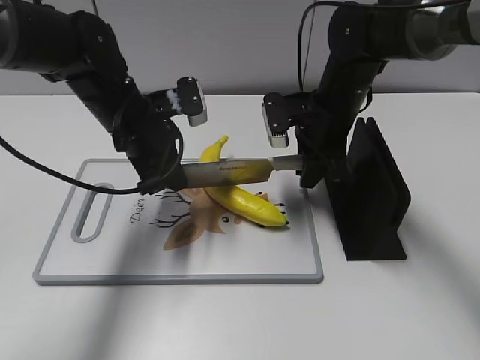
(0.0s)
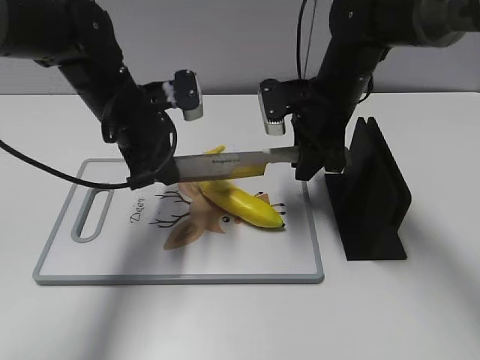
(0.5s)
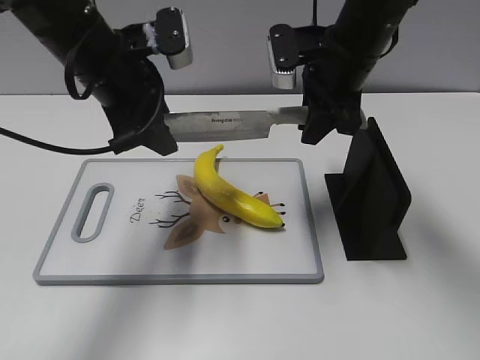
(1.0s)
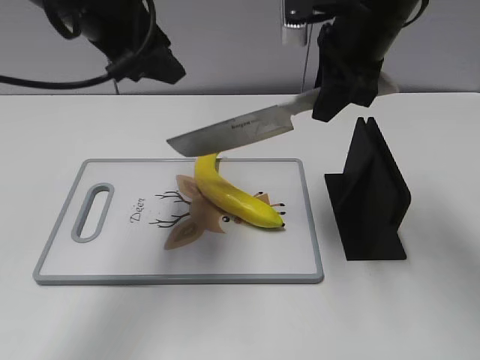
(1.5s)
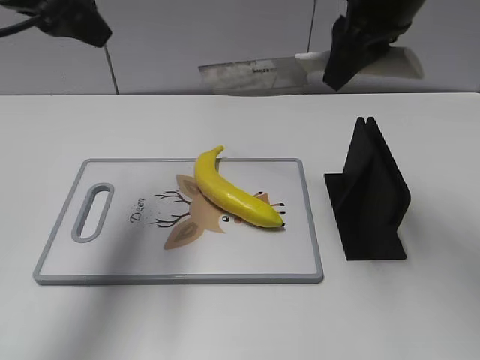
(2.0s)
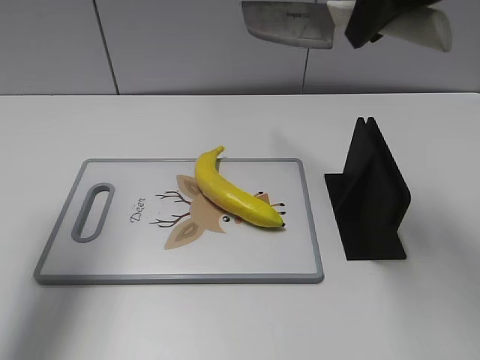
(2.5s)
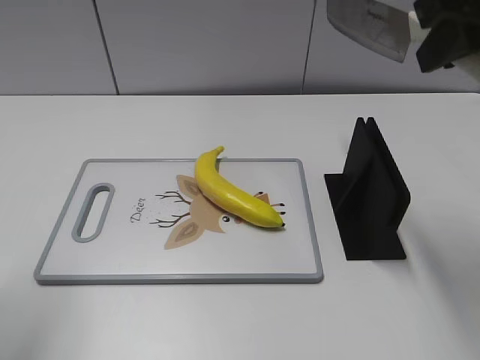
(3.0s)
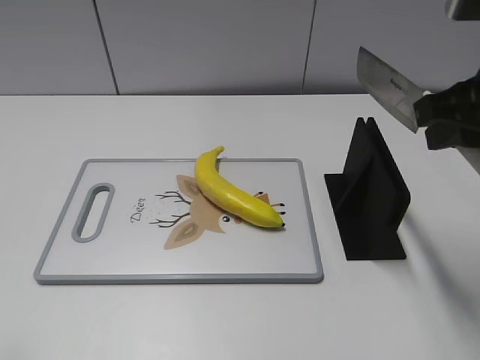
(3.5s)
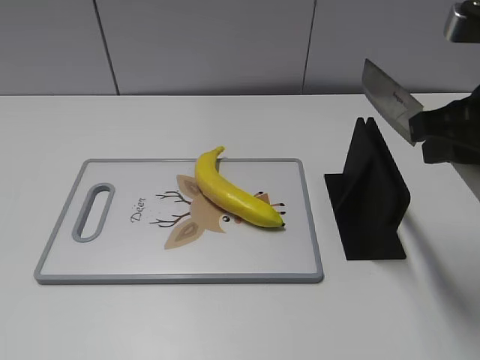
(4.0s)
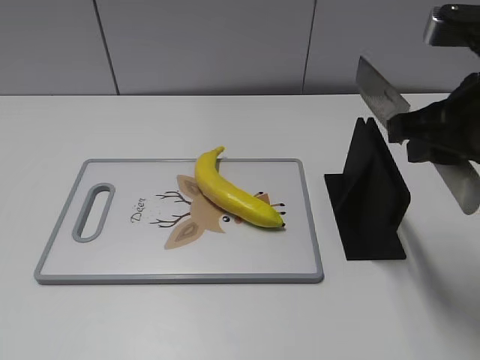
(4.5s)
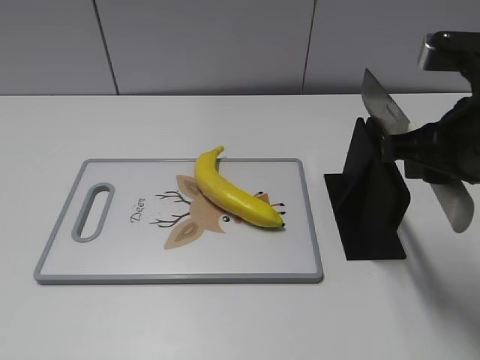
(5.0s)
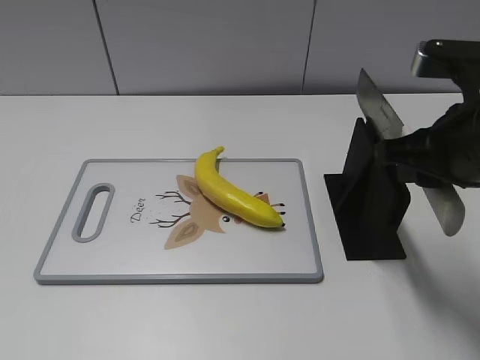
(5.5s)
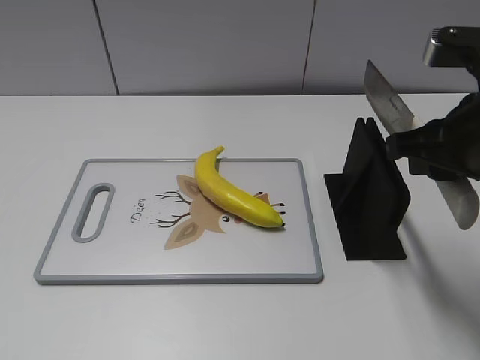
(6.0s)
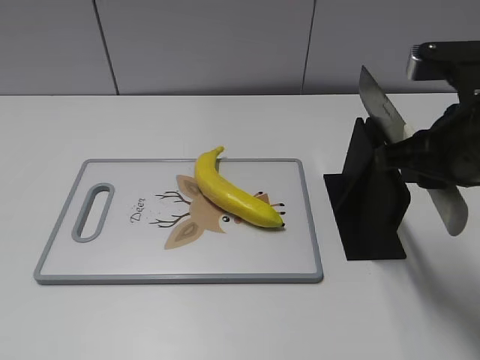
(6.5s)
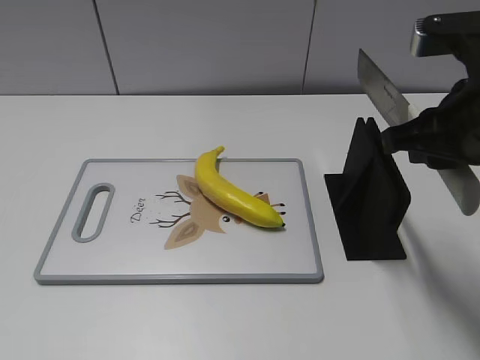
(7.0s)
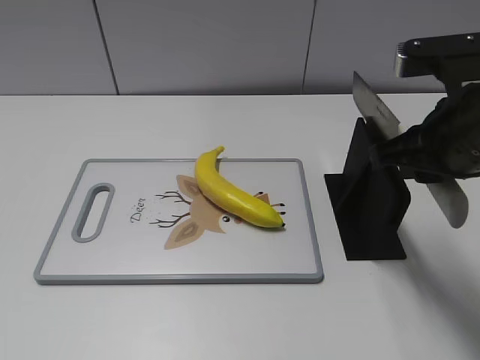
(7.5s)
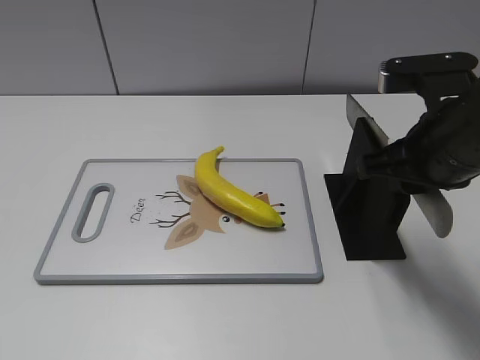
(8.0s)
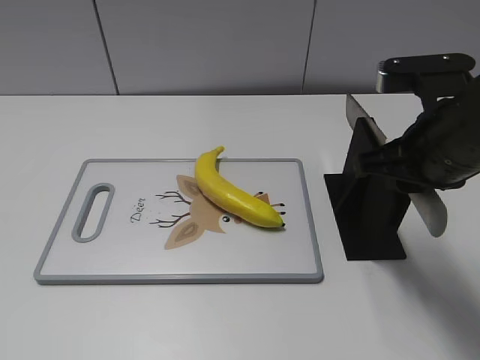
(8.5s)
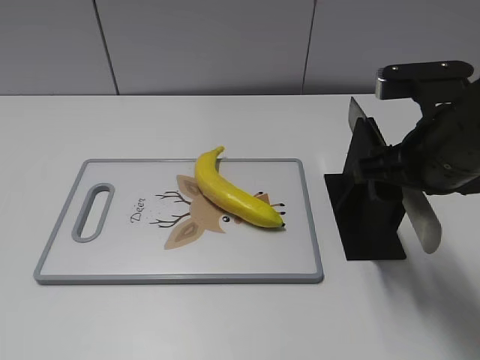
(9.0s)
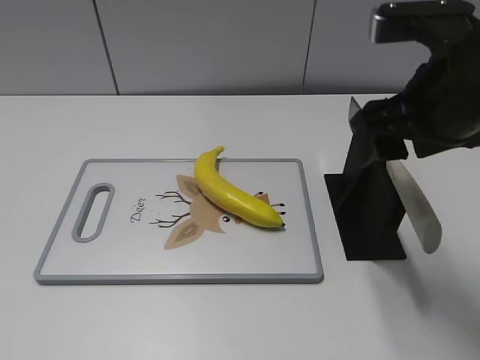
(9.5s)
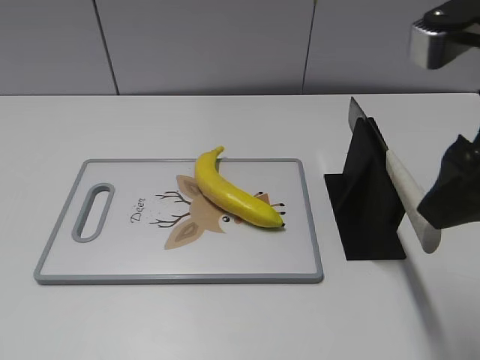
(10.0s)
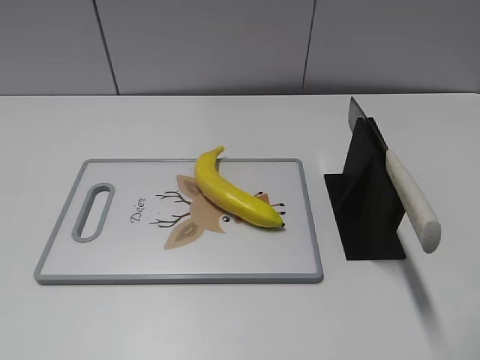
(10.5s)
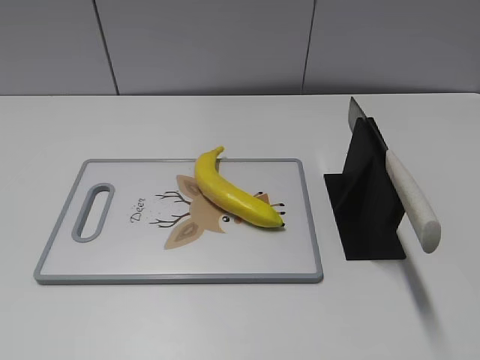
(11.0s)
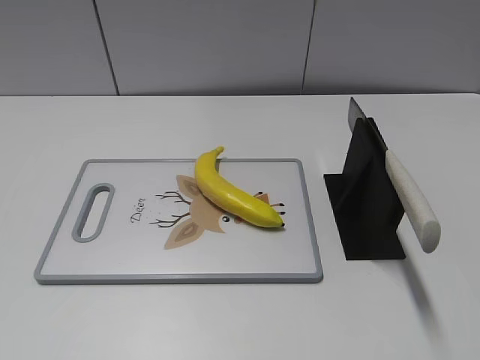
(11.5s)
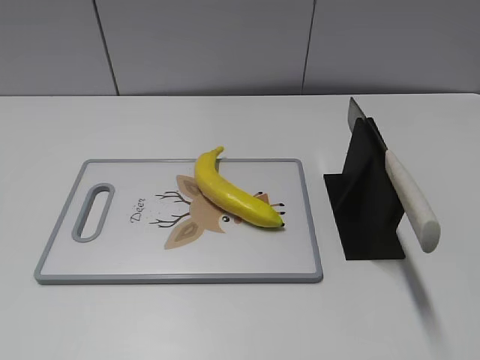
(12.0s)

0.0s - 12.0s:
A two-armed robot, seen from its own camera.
Task of the whole recording: cut plastic banana.
Step, 0.0s - 1.5s: Cut the banana with your right hand.
Step, 2.0s - 4.0s: Lift the knife with your right hand.
0.0s - 2.0s: The two grippers go roughly 20 cm upward. The left gripper opens up.
2.0s - 4.0s: The left gripper moves backward, some 30 cm. Meanwhile the right gripper heads backward and to the right, covering roughly 15 cm.
4.0s - 6.0s: The grippers stay close to where they were, moving slightly.
6.0s - 8.0s: The grippers stay close to where they were, moving slightly.
8.0s - 10.0s: The right gripper heads upward and backward, covering approximately 10 cm, and opens up.
10.0s - 12.0s: The right gripper heads backward and to the right, covering some 20 cm.

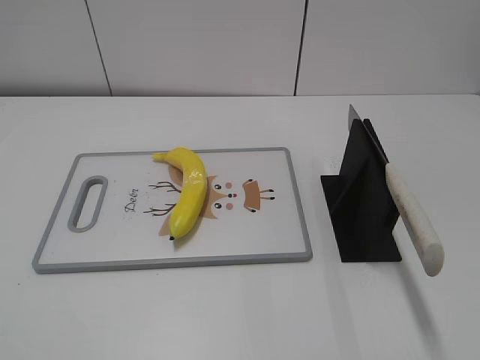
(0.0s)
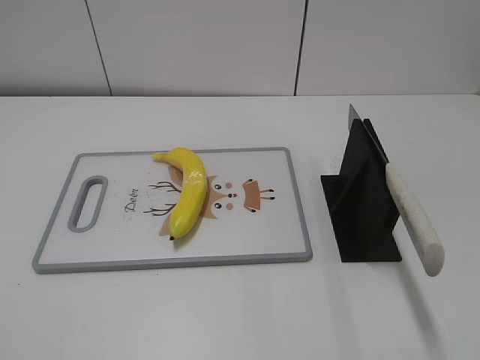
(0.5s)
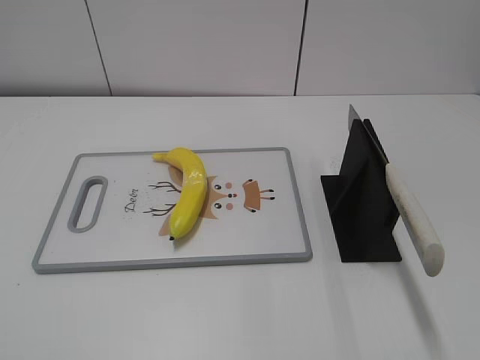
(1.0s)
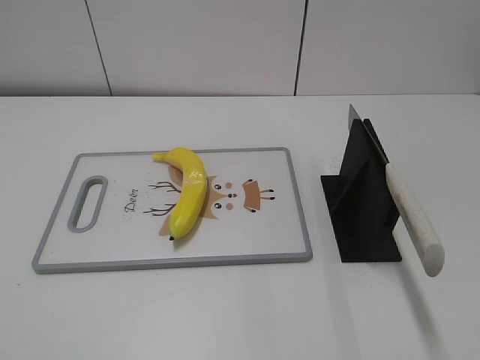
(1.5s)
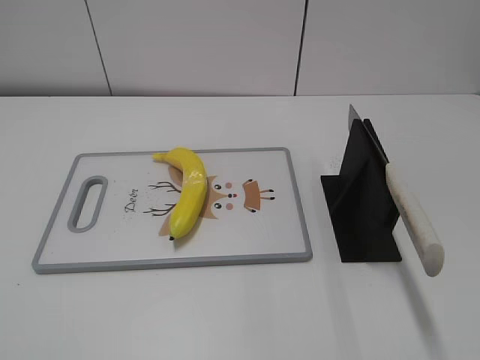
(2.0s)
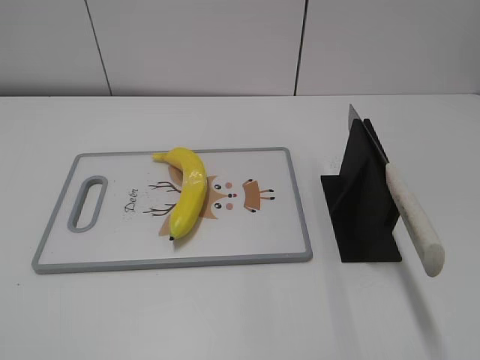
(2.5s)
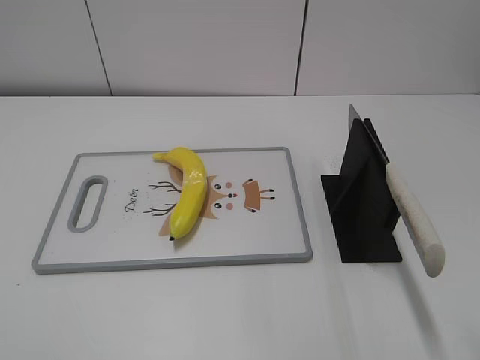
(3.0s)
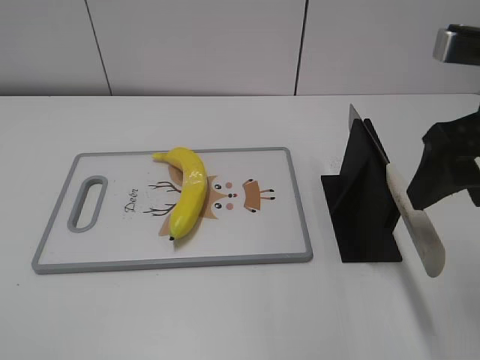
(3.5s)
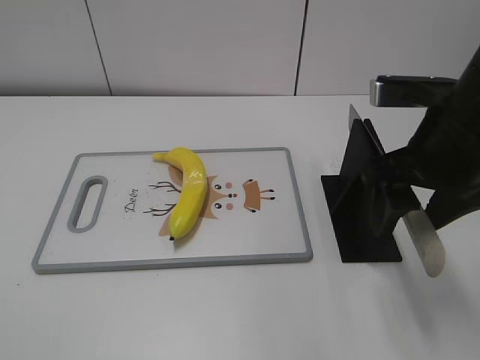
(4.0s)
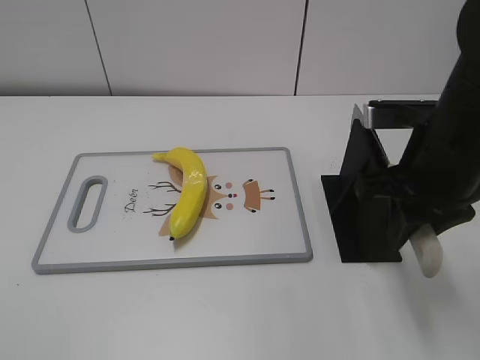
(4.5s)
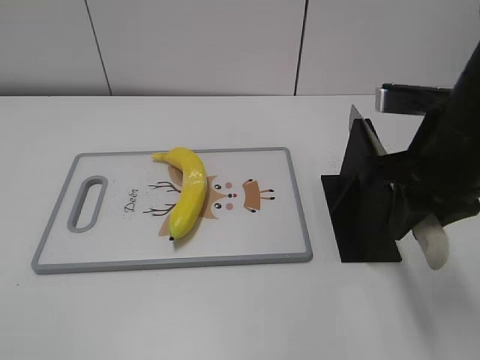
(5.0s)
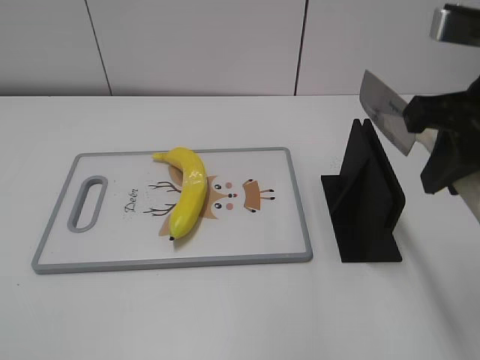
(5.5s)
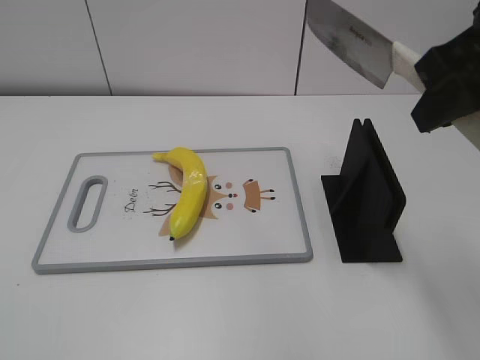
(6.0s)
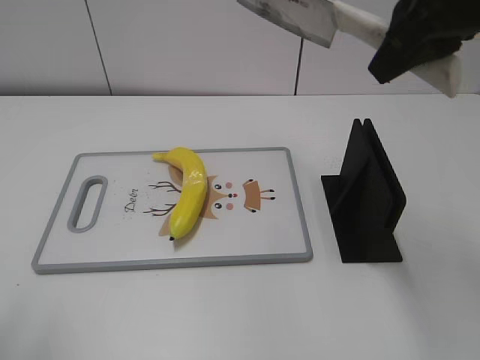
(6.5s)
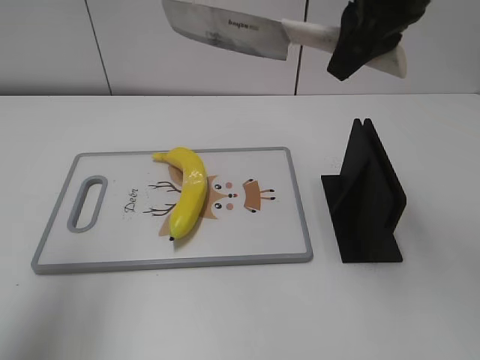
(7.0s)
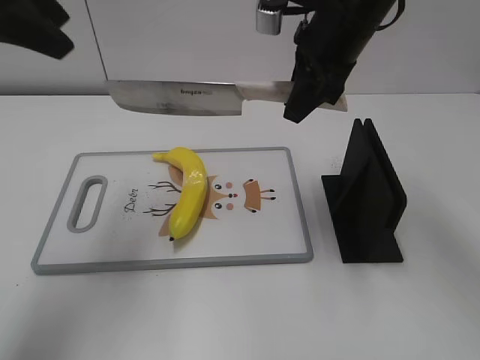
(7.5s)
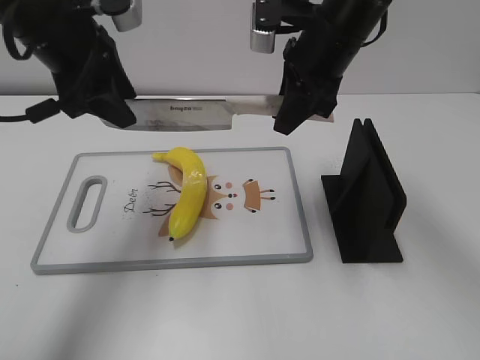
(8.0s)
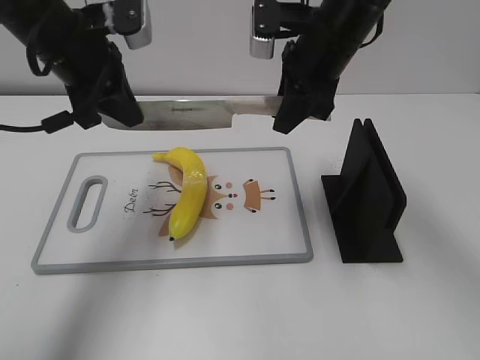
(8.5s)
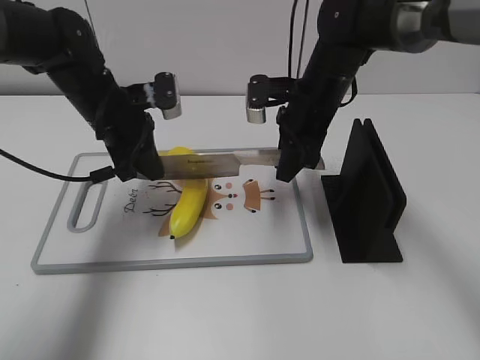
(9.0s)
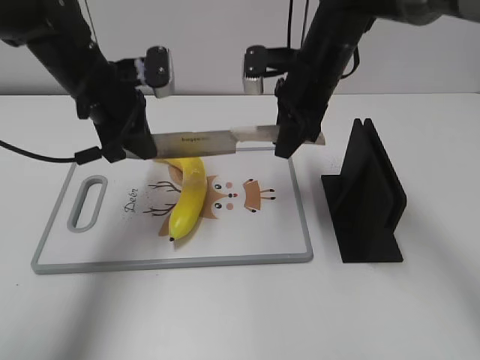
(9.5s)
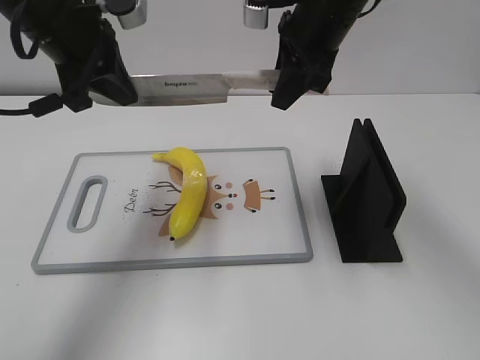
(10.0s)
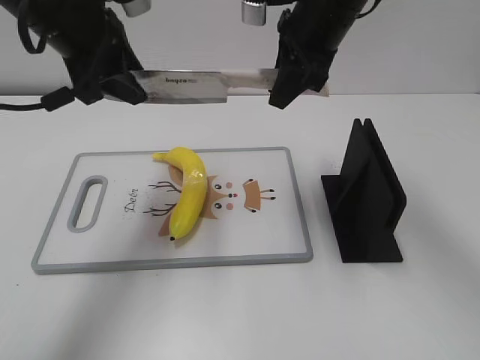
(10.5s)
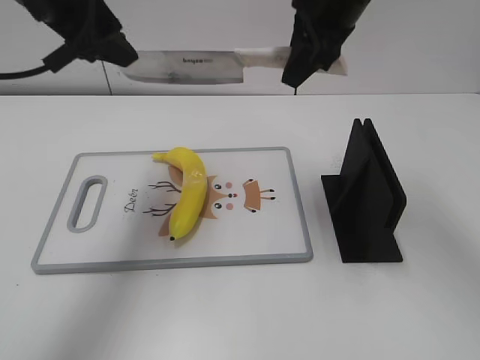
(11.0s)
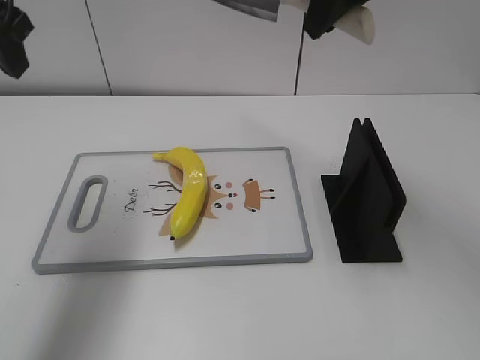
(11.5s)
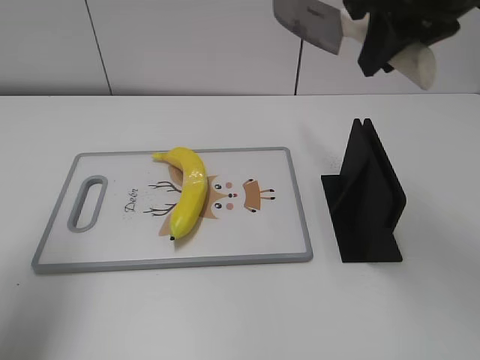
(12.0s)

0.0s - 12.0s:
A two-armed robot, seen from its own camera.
Task of the whole recording: cut plastic banana.
Step, 0.0s - 5.5s: Grab the knife handle with your right hand.
Step, 6.0s - 10.0s: Lift the knife with your right hand.
Step, 10.5s - 11.0s: Cut the banana with your right hand.
2.0s - 4.0s: The right gripper shifts roughly 25 cm forward and to the left.
4.0s - 6.0s: The right gripper is displaced upward by roughly 10 cm, and closes up.
6.0s - 8.0s: The left gripper is displaced forward and to the right by about 40 cm. The right gripper is displaced forward, to the left and downward by some 20 cm.
8.0s - 10.0s: The left gripper goes downward and returns, roughly 15 cm each way, and closes. The right gripper goes downward and returns, roughly 10 cm each way.
10.0s - 12.0s: The left gripper travels to the left and backward by roughly 15 cm, and opens its fingers. The right gripper travels backward, upward and to the right by some 15 cm.

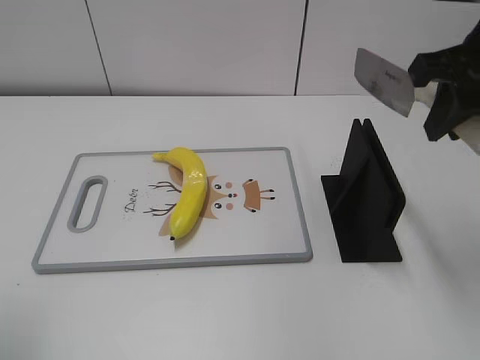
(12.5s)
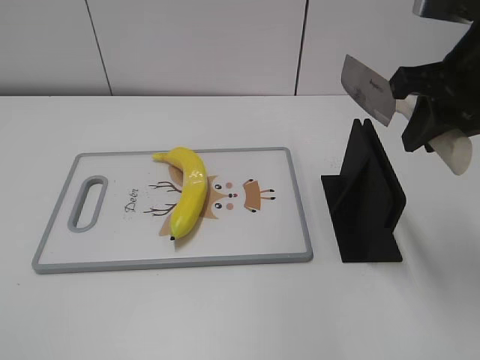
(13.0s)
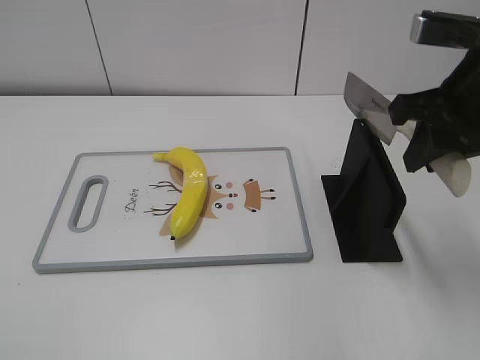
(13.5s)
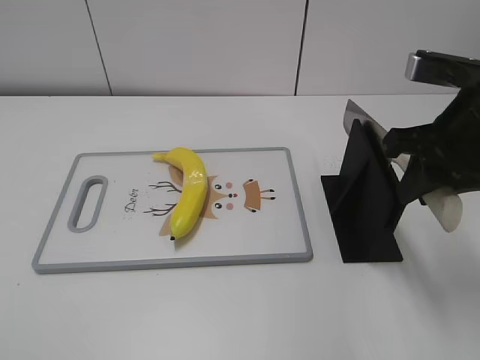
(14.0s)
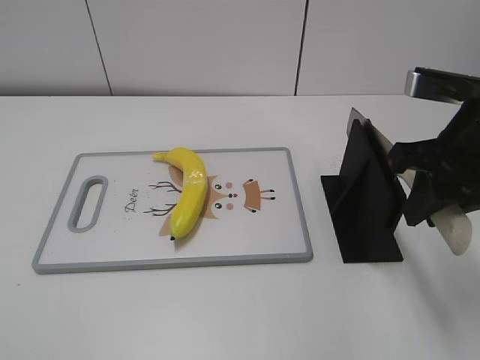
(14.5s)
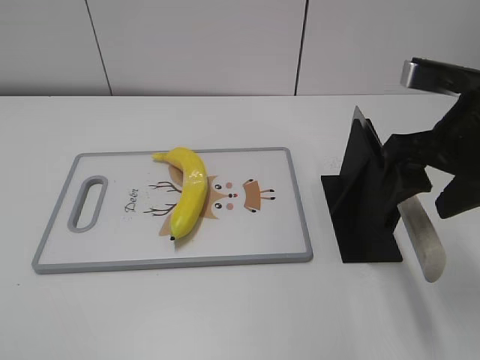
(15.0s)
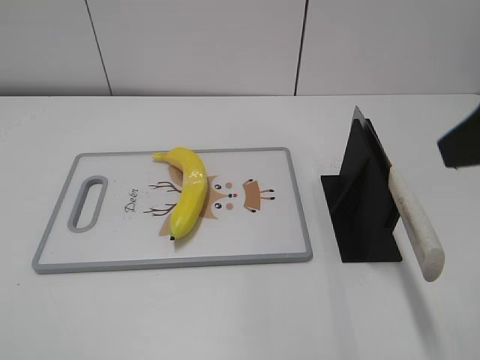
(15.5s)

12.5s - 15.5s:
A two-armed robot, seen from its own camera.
Task of the whole recording: cut plastic banana.
12.5s - 14.0s: The right gripper shifts some 5 cm downward.
14.0s - 15.5s: The right gripper shifts roughly 15 cm upward and backward, and opens up.
